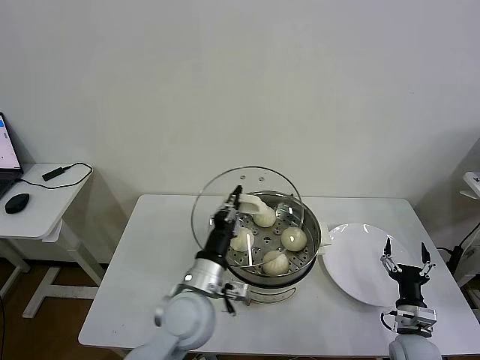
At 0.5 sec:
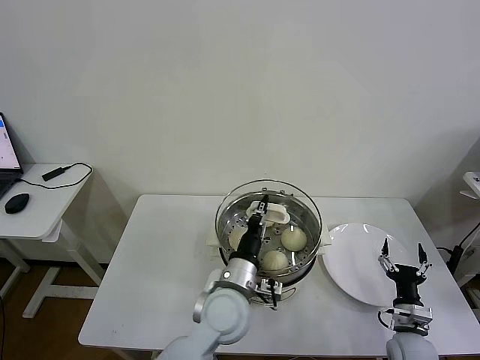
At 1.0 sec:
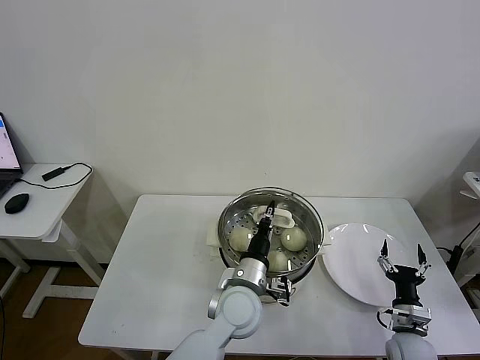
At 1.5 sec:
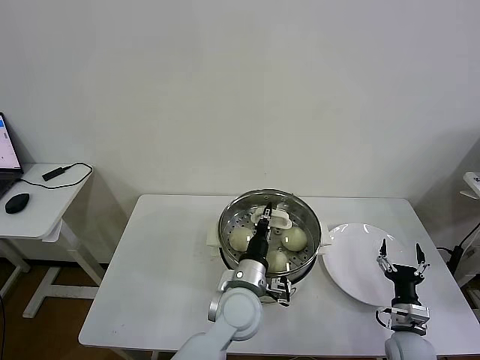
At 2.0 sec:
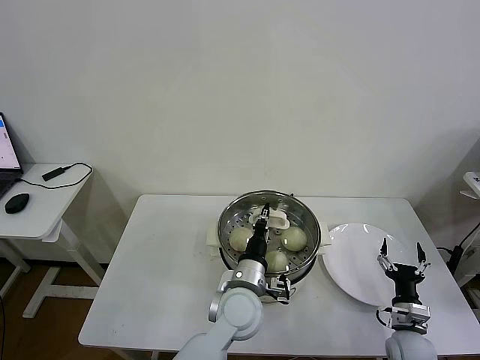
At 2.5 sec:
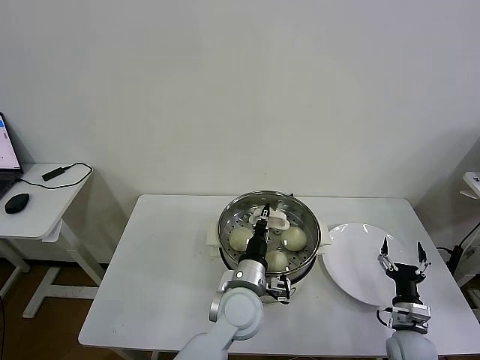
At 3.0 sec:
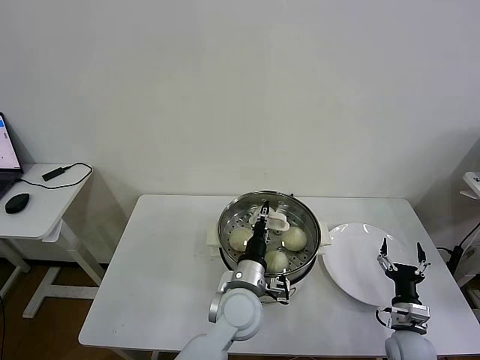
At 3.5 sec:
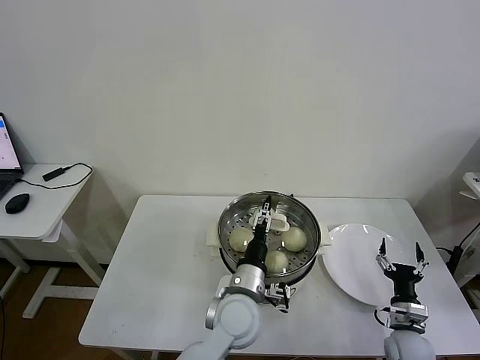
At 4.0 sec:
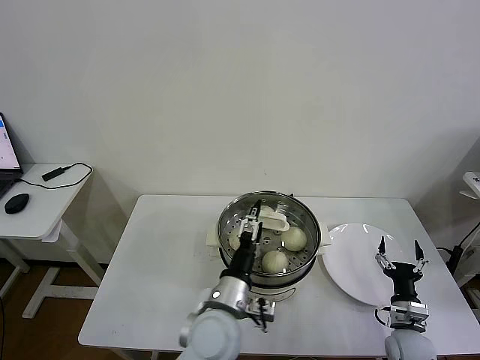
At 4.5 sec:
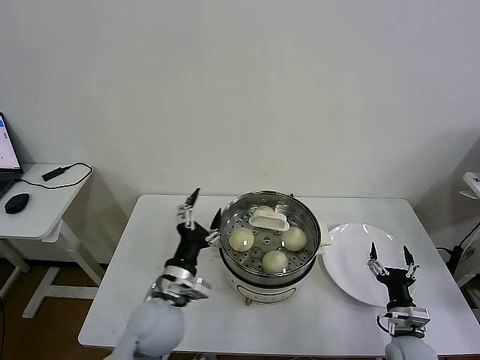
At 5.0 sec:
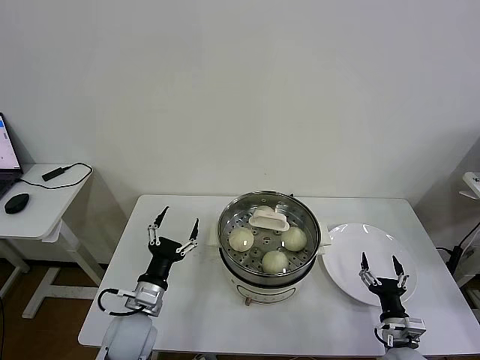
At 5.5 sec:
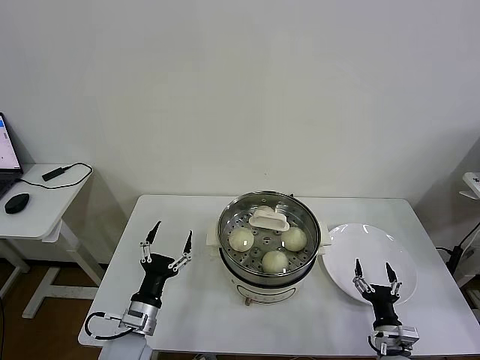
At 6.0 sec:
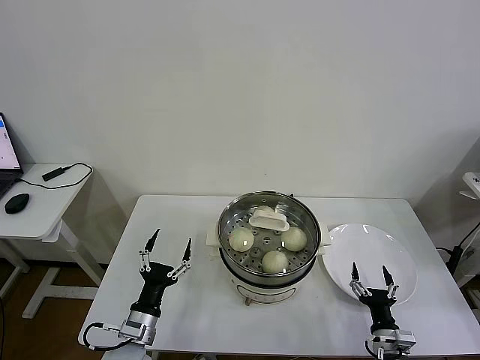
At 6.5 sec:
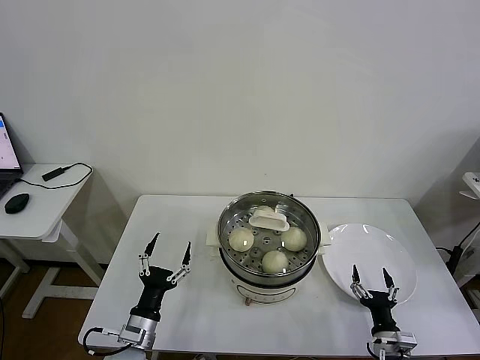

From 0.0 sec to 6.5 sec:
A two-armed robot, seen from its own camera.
Task of the whole recording: take steamed baozi put them in steamer then cover it.
Step, from 0.0 sec to 3.0 sec: Place the pot lid on the steamer with left gripper.
From 0.0 sec to 2.0 sec: The left gripper heads to the right, covering some 10 cm.
From 2.0 sec to 4.5 sec: The left gripper heads to the left, covering roughly 15 cm, and opens its fingers.
From 4.5 sec to 6.5 sec: The right gripper moves approximately 5 cm. Meanwhile the left gripper heads downward and to the left, covering about 15 cm.
